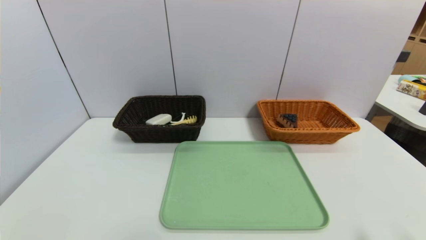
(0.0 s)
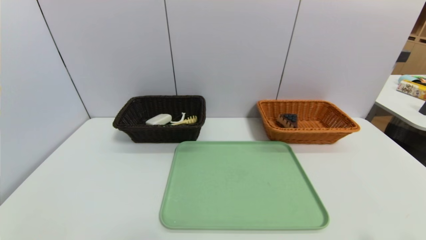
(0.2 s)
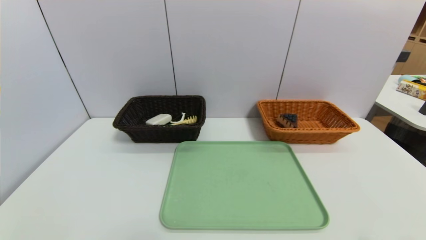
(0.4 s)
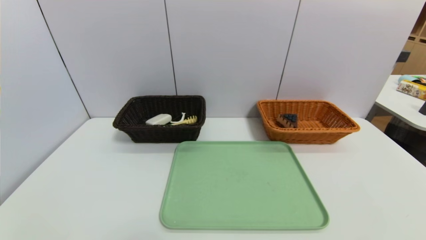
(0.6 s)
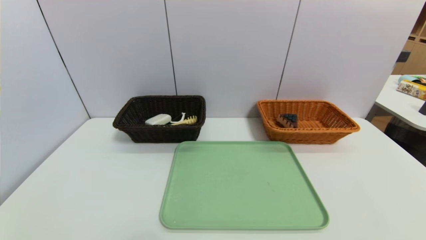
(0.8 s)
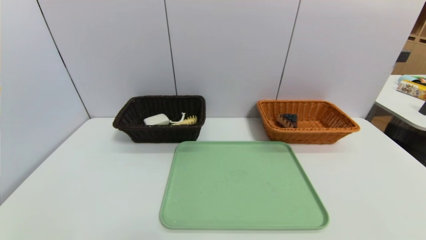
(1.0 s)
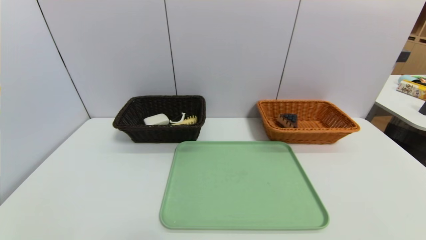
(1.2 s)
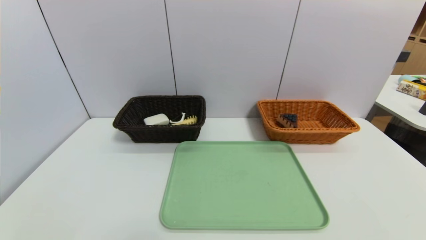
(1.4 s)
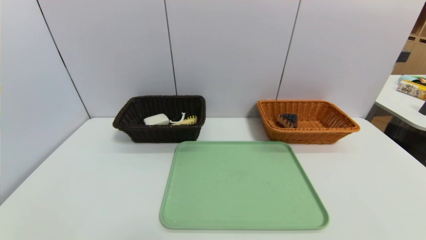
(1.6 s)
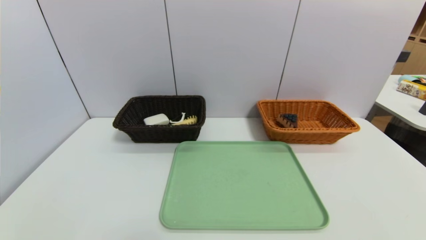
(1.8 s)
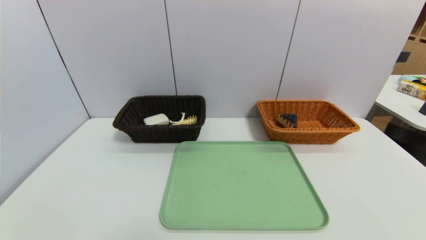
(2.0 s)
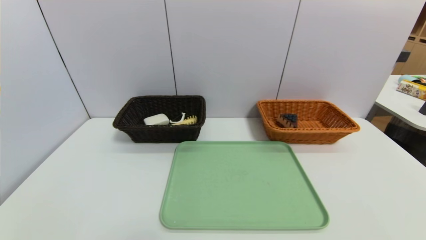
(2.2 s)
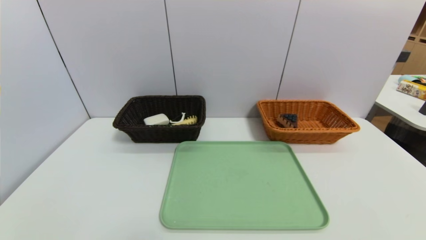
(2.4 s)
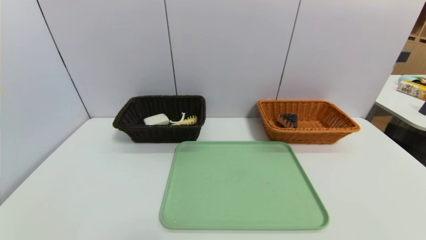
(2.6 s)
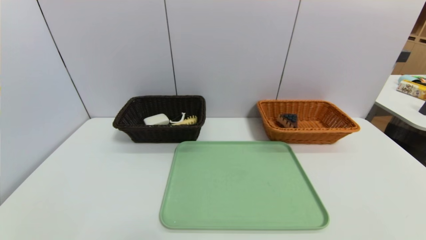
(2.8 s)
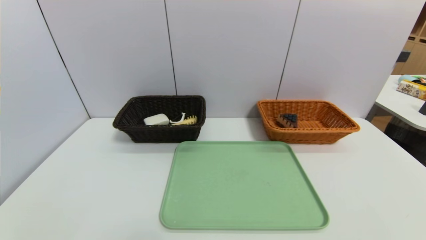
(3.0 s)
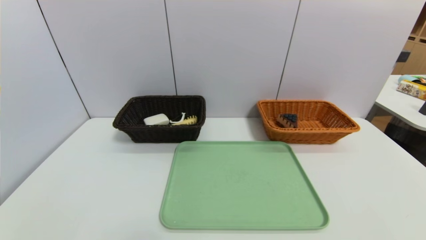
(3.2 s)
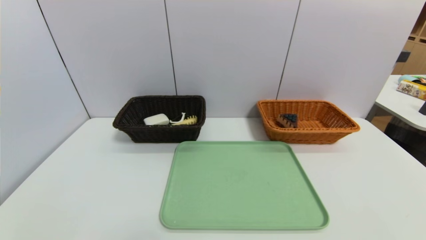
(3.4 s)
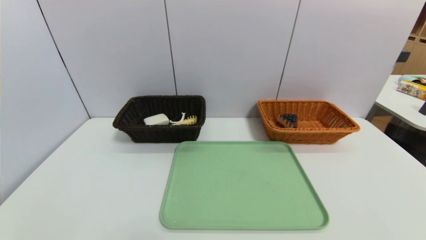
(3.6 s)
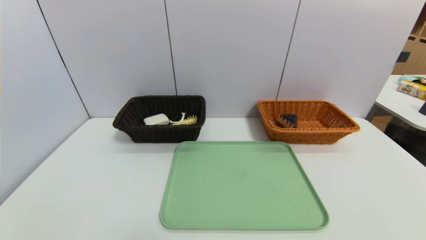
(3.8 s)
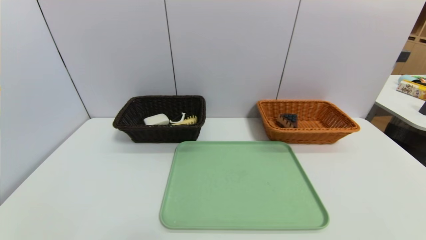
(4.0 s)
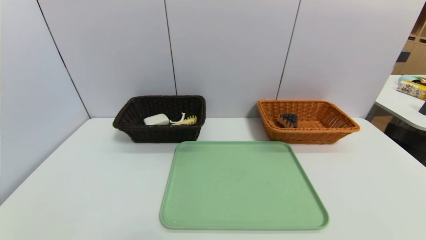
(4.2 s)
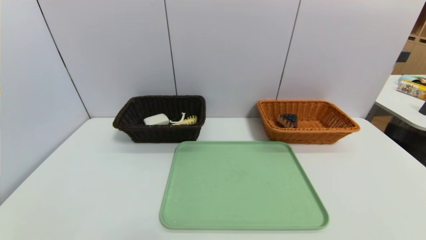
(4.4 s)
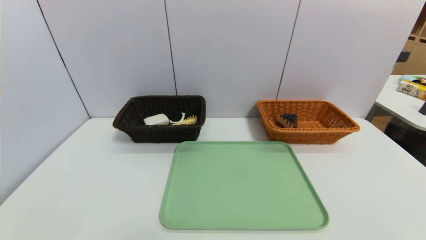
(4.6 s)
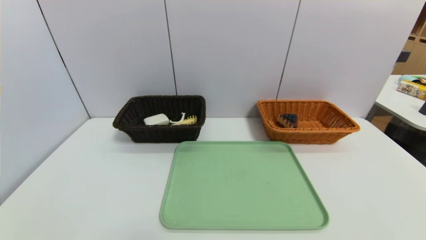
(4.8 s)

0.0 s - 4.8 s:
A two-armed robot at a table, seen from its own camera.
Task of the whole recording: place the food in the right basket with the right gripper, and place the non food items in the left basket with the left gripper.
3.2 s - 4.8 s: Neither gripper changes place.

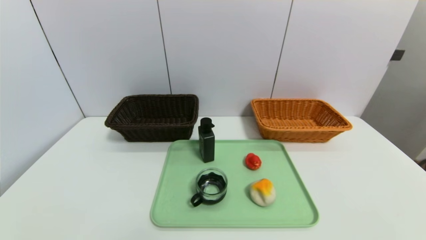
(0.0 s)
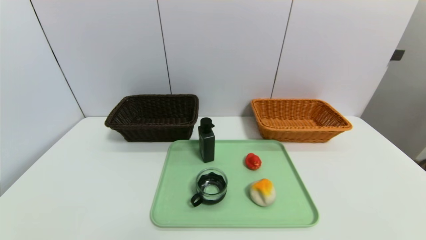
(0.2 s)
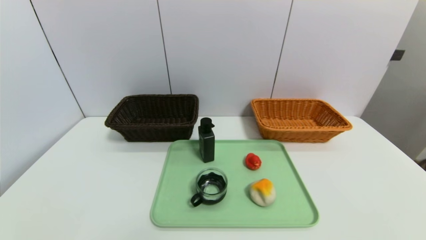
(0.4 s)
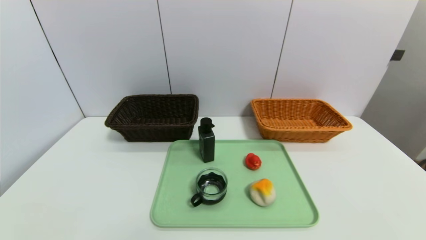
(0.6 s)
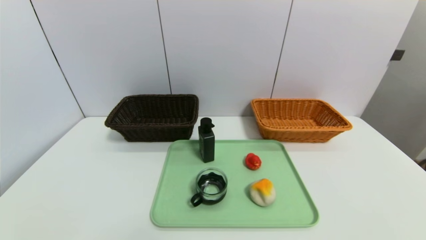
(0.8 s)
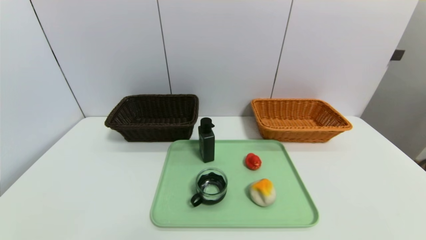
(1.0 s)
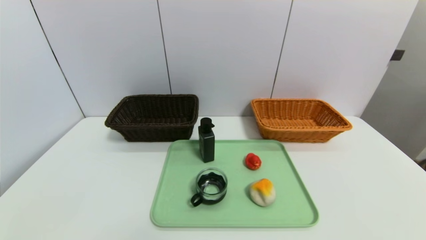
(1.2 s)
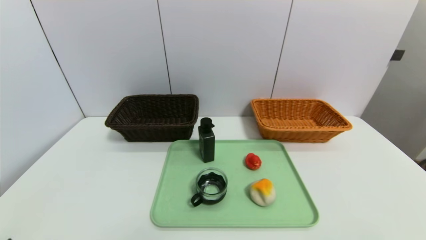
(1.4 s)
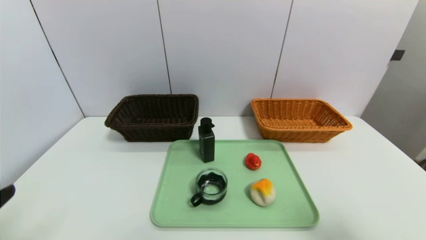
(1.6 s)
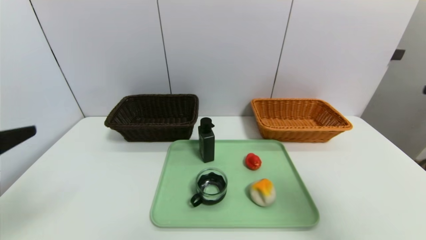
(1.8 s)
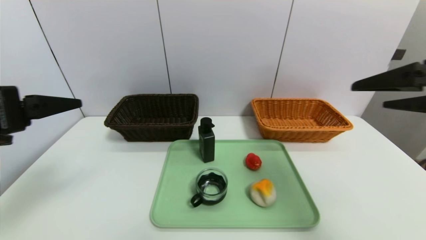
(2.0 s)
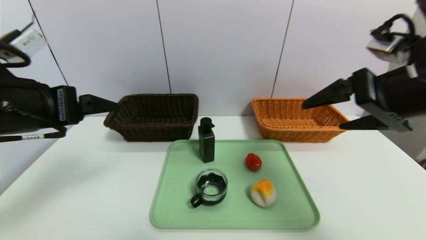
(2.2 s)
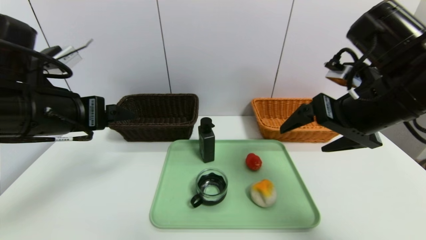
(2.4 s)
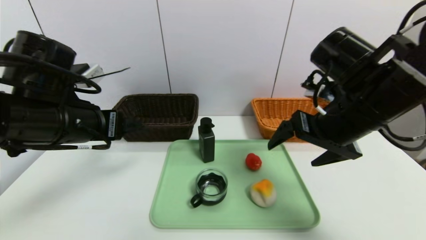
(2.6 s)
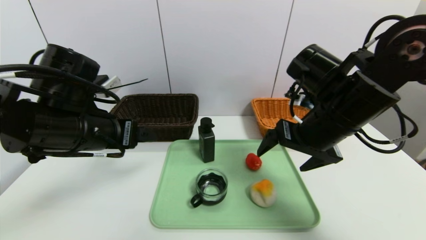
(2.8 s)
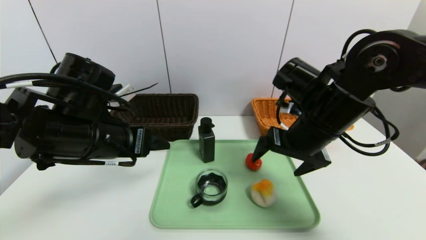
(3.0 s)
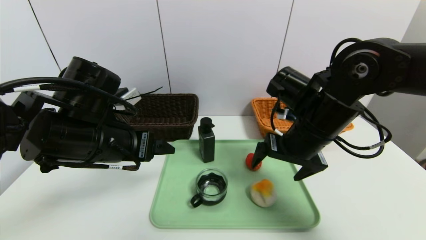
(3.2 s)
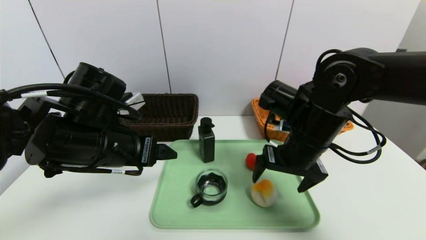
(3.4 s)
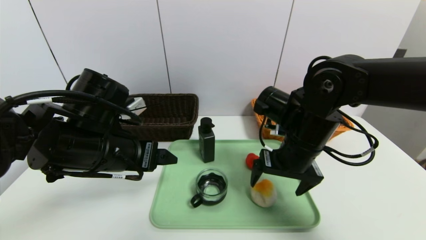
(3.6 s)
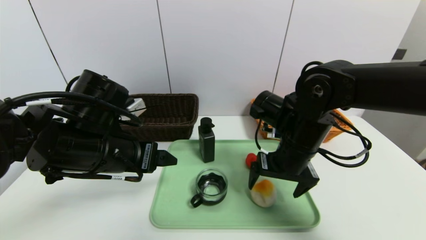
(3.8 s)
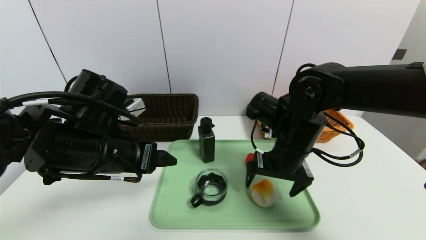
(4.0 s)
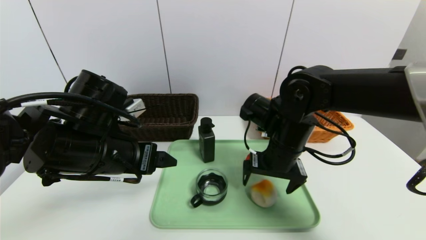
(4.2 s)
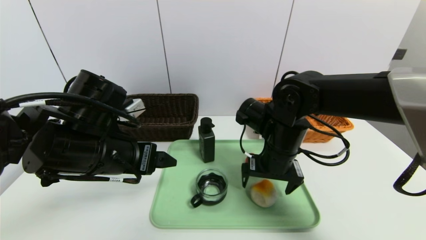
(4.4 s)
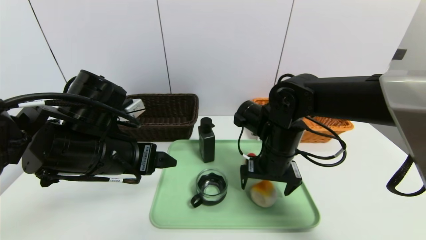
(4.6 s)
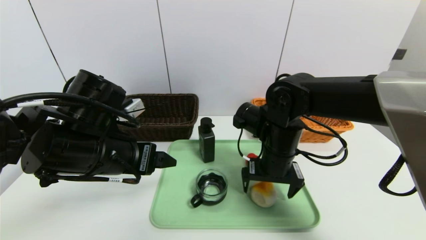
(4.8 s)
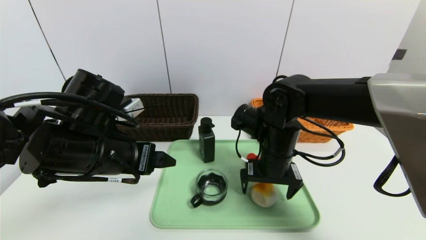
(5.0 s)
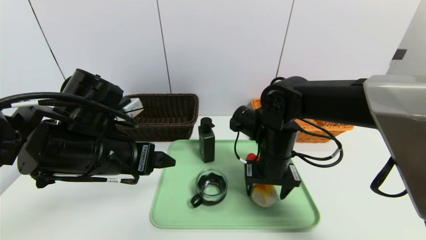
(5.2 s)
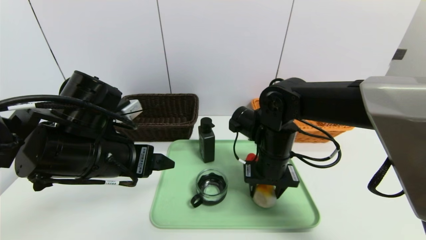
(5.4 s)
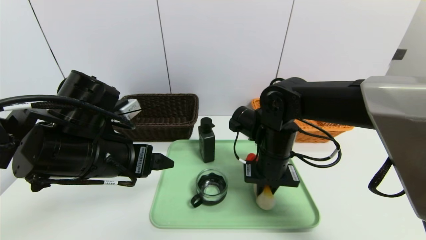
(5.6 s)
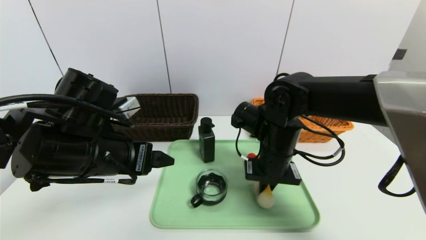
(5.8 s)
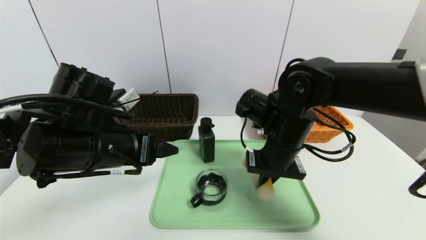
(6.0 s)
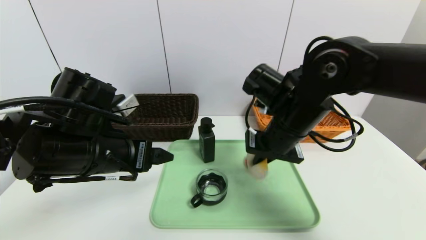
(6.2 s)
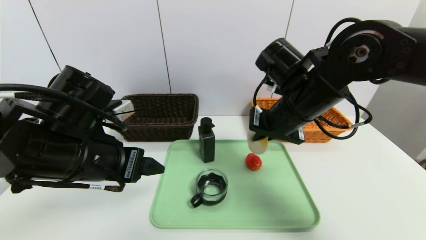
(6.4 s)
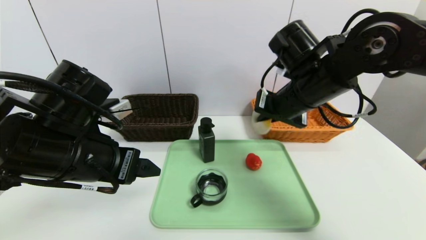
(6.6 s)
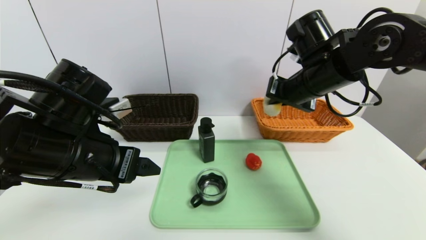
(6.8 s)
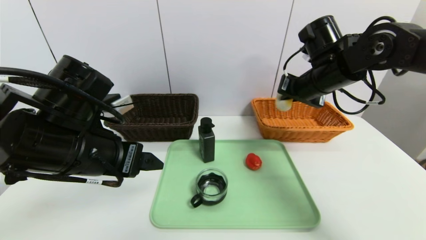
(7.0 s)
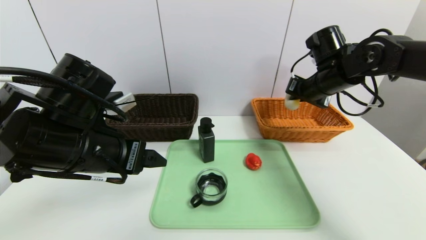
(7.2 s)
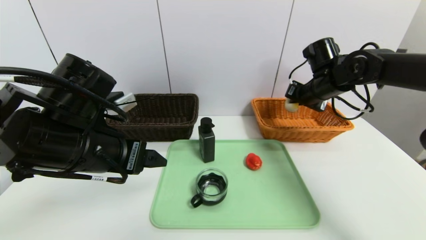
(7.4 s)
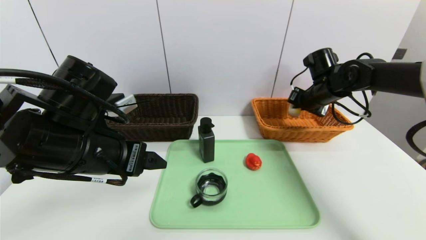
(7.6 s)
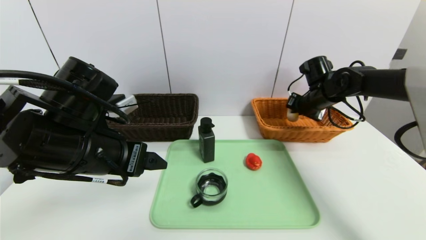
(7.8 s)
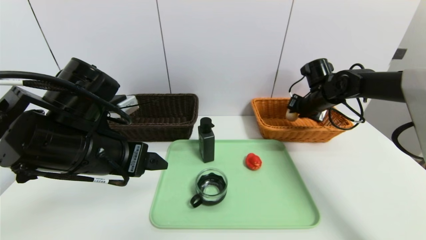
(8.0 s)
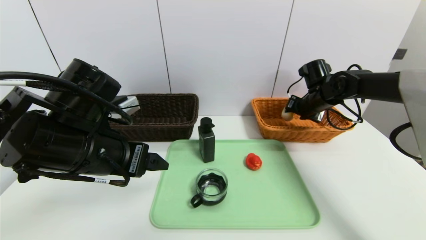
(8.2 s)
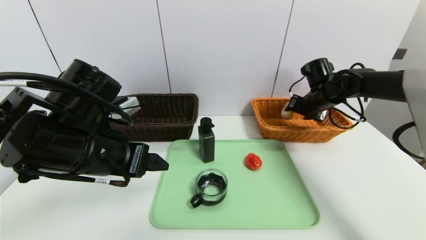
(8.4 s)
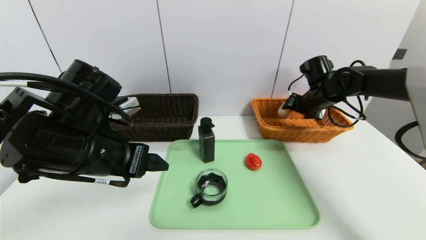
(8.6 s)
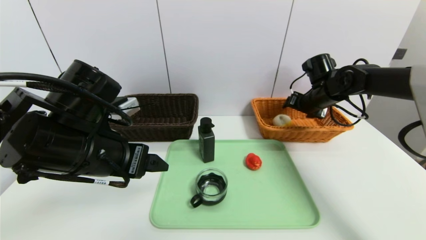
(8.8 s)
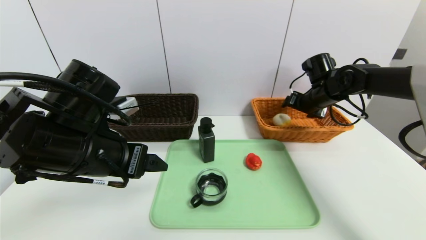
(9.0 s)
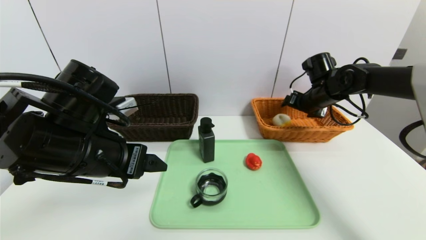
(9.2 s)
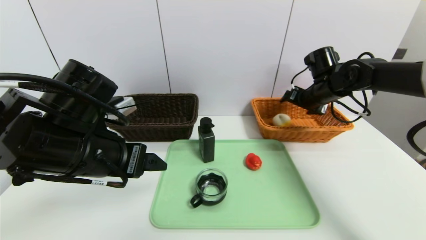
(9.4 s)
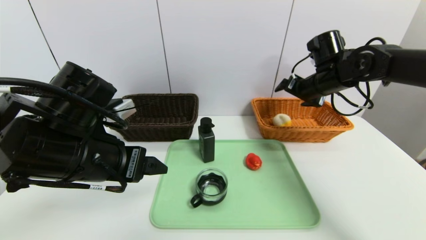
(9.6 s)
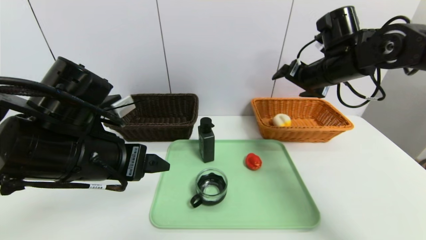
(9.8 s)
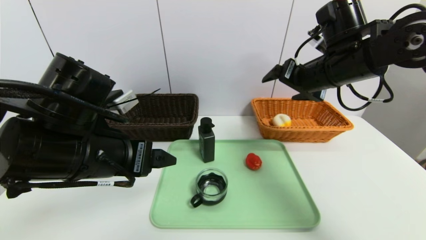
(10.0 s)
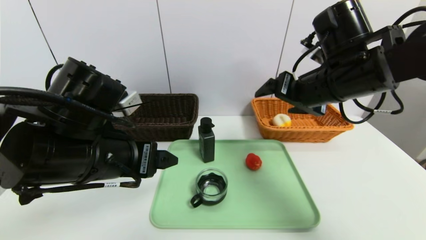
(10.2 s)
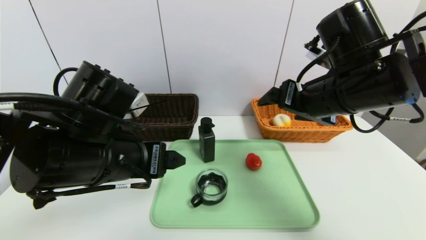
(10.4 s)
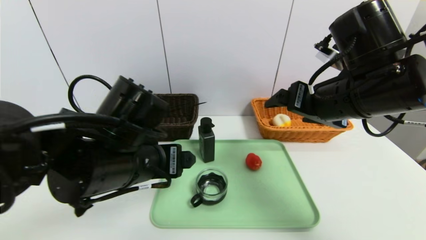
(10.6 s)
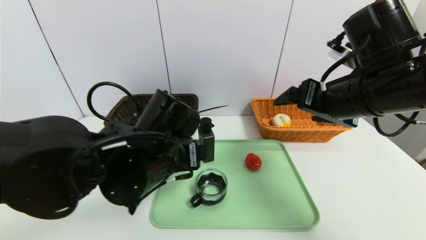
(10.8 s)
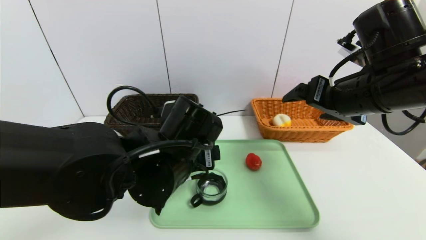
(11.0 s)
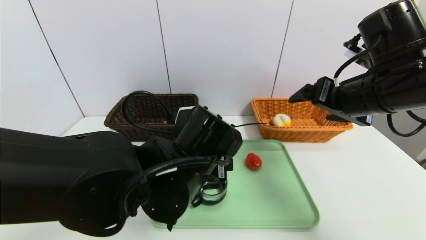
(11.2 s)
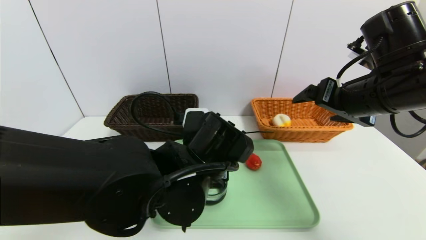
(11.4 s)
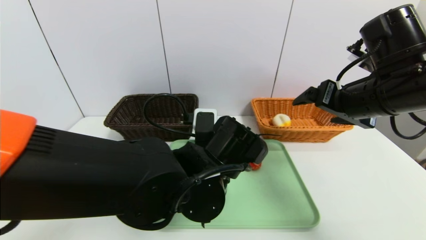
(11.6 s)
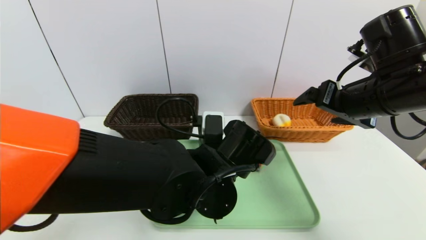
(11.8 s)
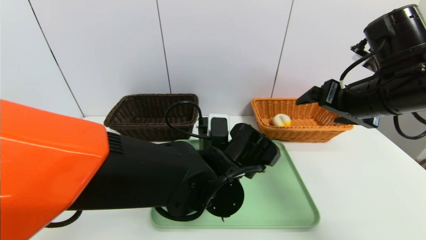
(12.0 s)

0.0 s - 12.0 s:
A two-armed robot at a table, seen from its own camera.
Task of the whole recording: place the food in the right basket with the right gripper, and place the non food items in the left basket with the left gripper.
Step, 0.0 s - 9.4 s: Grasp the egg yolk pastry and put it in the right basket.
0.0 s - 1.6 s: The right gripper shifts about 20 cm upward.
1.6 s - 3.0 s: The left gripper travels forward and to the right by some 25 cm; the right gripper moves forward and to the left, some 30 cm.
3.0 s - 4.4 s: The right gripper shifts about 5 cm downward.
4.4 s - 6.0 s: The right gripper closes up.
6.0 s - 7.6 s: The right gripper travels forward and to the right by about 20 cm.
7.6 s - 9.0 s: The right gripper opens up.
9.0 s - 10.4 s: The right gripper moves backward, to the left and upward, approximately 25 cm.
10.4 s - 12.0 s: The left gripper travels to the right and downward by approximately 20 cm, while the right gripper heads to the right, covering approximately 5 cm.
